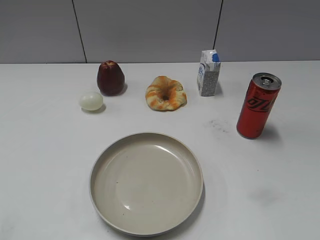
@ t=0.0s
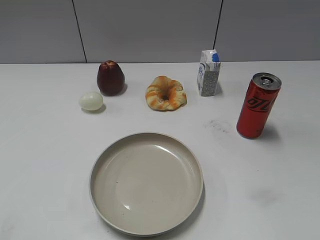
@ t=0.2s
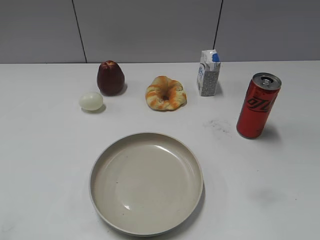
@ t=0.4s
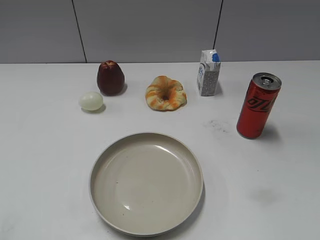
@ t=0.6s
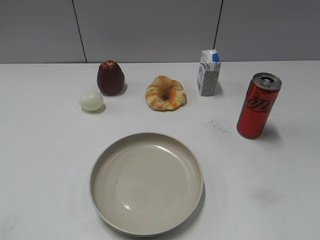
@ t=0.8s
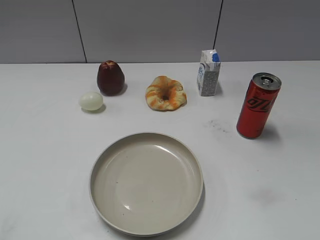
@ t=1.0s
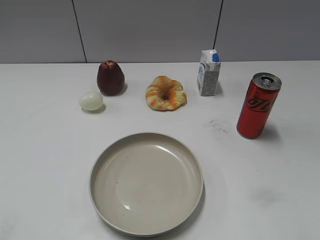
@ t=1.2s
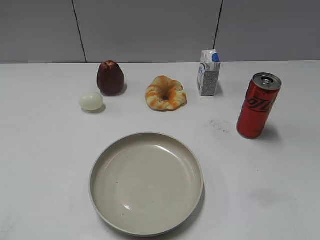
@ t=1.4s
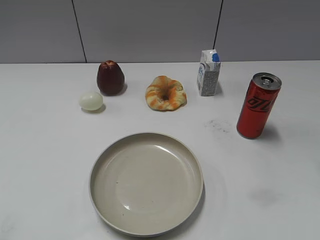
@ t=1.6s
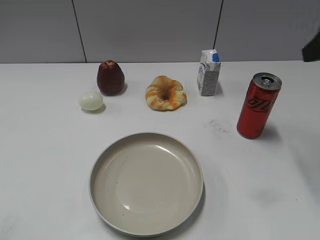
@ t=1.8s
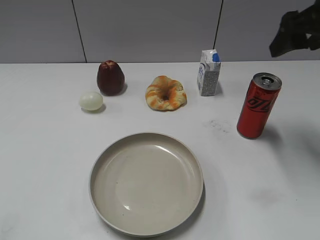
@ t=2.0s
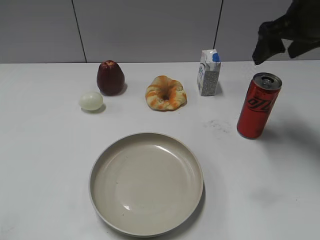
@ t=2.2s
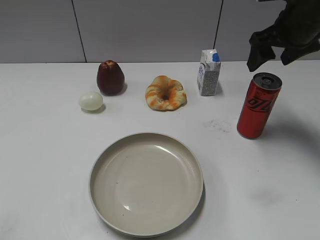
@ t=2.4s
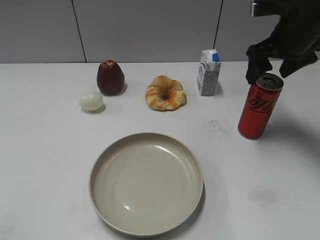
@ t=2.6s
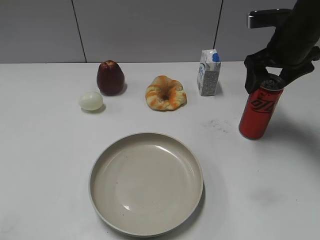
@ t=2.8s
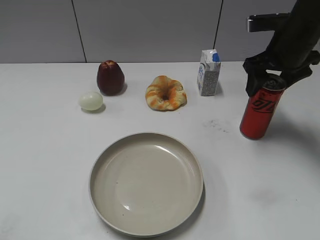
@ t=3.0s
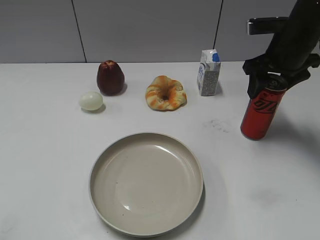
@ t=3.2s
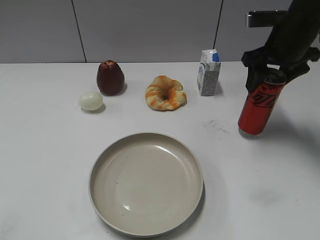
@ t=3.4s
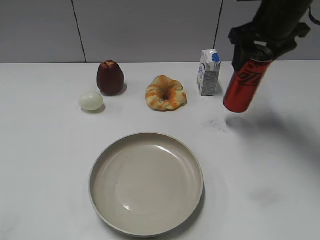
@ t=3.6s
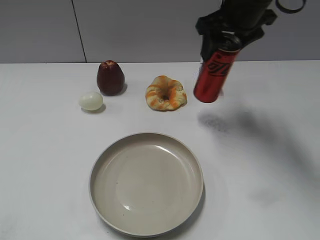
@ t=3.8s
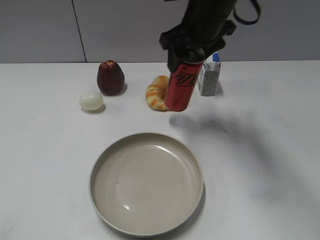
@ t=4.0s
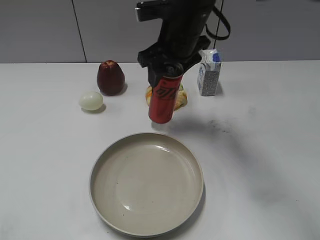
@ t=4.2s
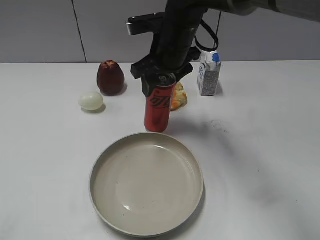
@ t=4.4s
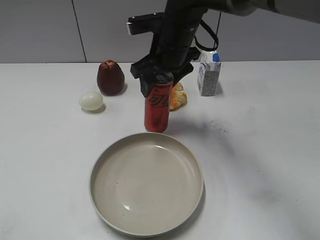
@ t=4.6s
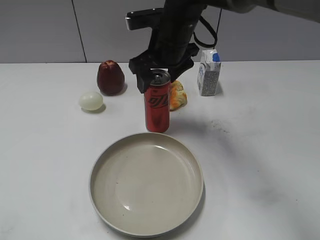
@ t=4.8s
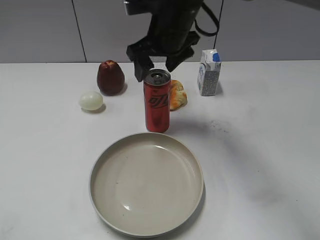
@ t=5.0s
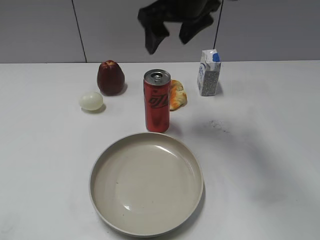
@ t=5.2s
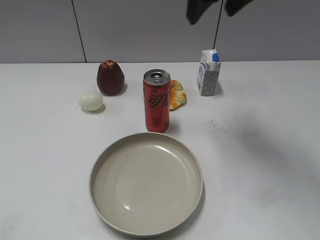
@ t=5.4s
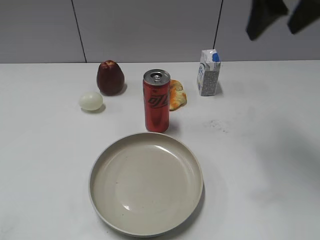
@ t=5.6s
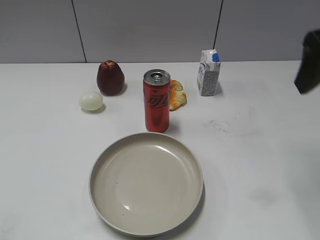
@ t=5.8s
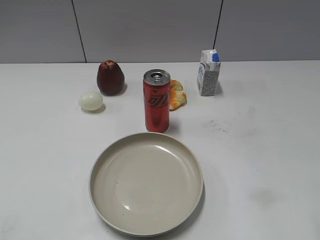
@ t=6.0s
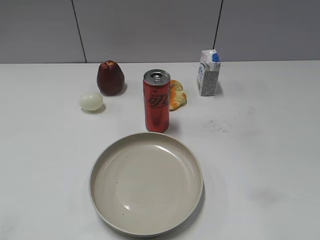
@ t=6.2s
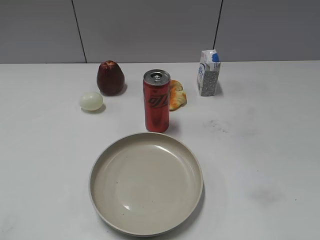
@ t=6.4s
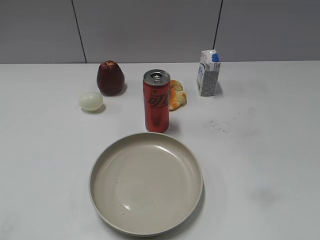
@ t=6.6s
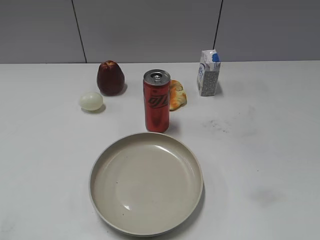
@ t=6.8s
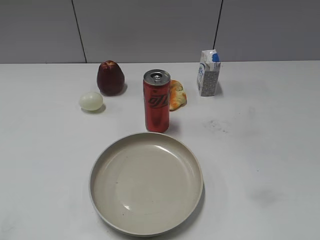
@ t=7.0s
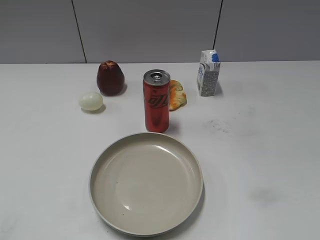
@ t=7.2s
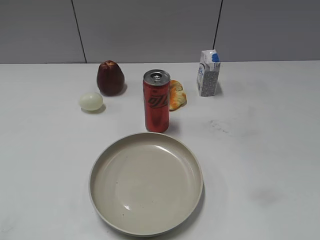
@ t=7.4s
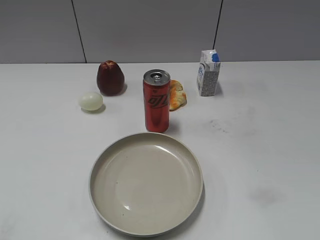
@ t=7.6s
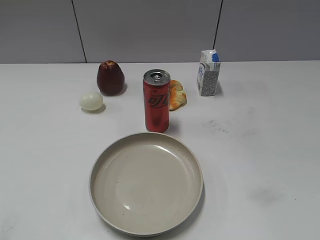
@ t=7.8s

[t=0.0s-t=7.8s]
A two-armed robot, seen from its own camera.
Step, t=0.0s to t=3.2s: Grasp the cola with right gripper.
Step, t=3.4s to t=5.0s: Place the cola on the table with right gripper.
t=1.6s to t=3.2s: The right gripper travels forward and downward by about 20 cm, and closes up.
t=3.2s to t=4.6s: The right gripper travels to the left by approximately 20 cm, and opens up.
t=4.6s to t=6.2s: The right gripper shifts some 40 cm backward and to the right, and opens, then closes again.

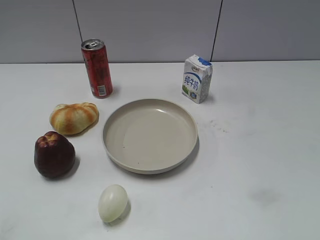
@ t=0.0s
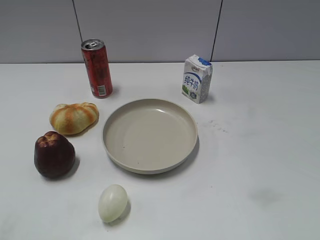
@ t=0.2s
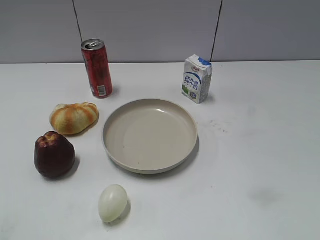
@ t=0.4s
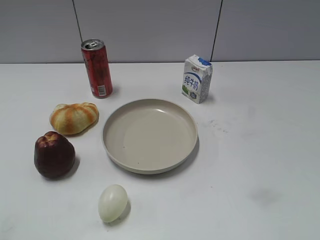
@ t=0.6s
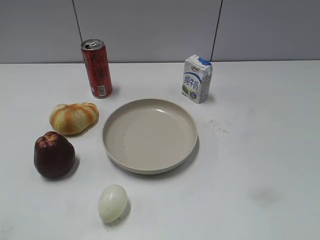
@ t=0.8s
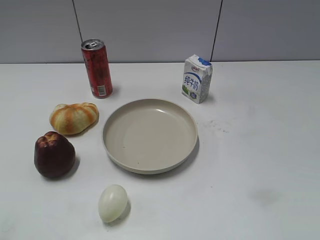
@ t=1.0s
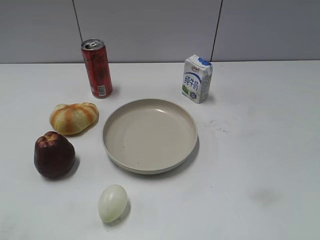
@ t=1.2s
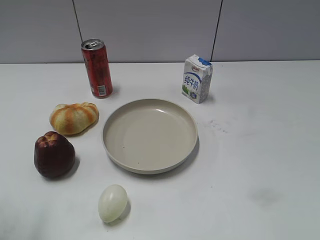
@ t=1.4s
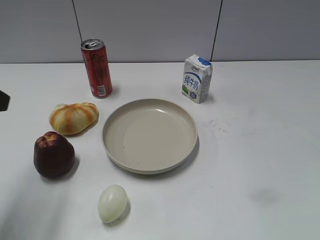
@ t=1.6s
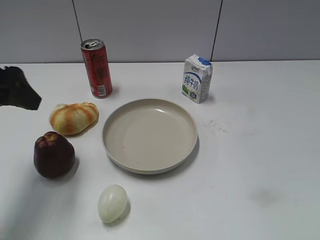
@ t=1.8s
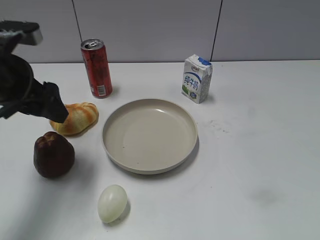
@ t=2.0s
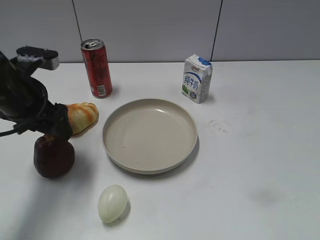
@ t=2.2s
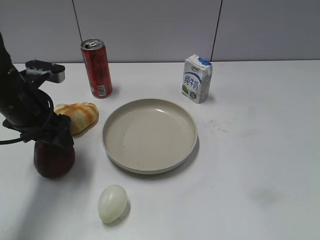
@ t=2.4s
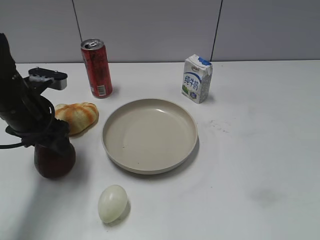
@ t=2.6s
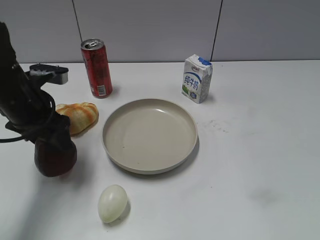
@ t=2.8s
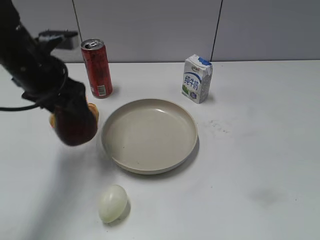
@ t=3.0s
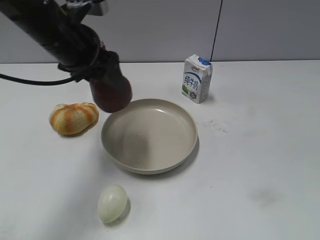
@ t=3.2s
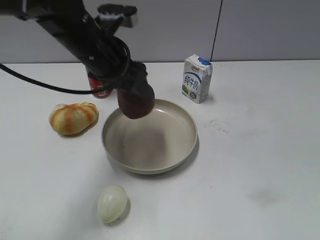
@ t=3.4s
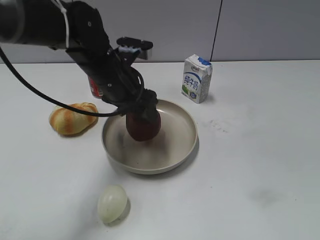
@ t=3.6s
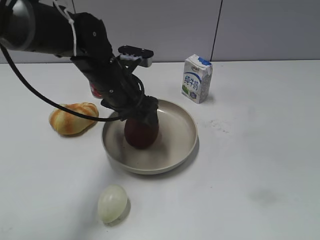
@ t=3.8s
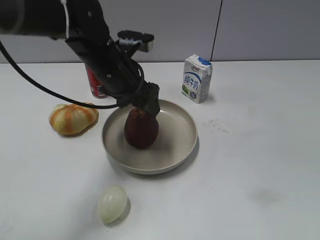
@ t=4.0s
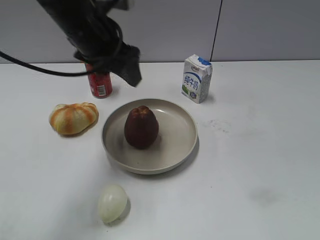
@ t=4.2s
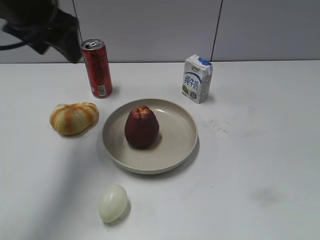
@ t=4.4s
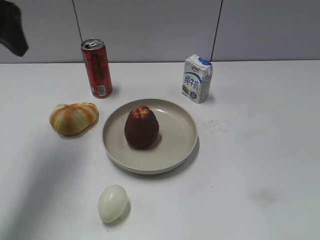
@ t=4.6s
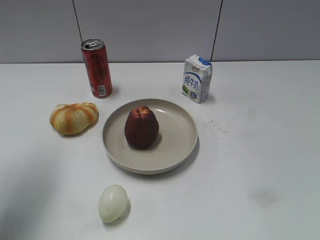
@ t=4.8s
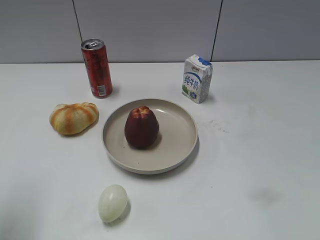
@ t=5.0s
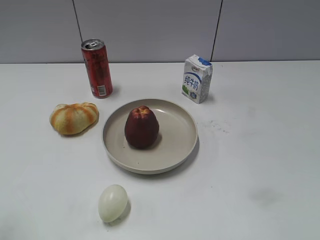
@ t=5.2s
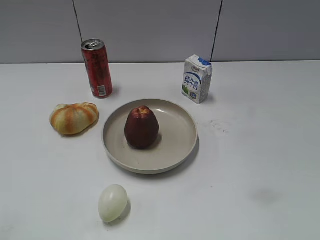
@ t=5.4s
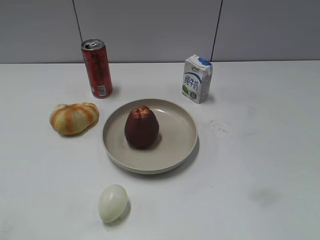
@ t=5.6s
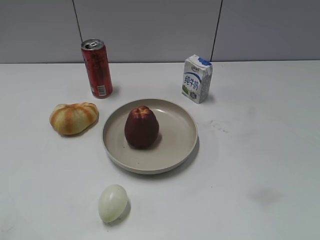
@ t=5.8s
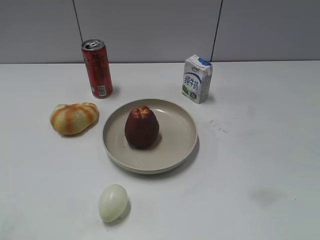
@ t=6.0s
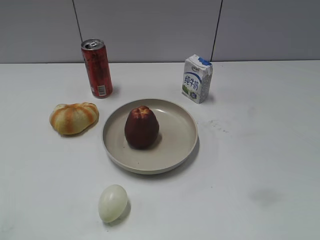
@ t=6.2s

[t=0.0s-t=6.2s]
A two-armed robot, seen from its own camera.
Step, t=0.0s to t=2.6s: Grasp the apple with left gripper.
Step, t=2.8s to t=4.0s: Place the apple on the plate with left gripper.
t=1.6s to t=3.2s: The left gripper heads forward and to the right, covering about 20 cm, and closes.
t=3.2s to t=4.6s: The left gripper shifts approximately 15 cm to the left and upward, and opens and closes again.
t=4.6s to t=6.2s: The left gripper goes about 30 cm backward.
